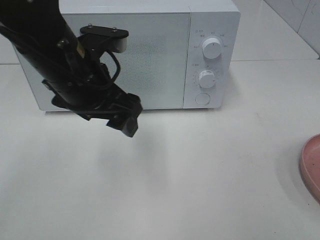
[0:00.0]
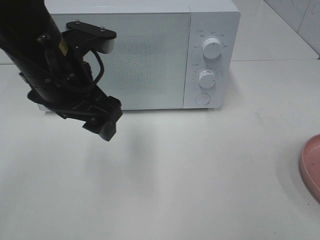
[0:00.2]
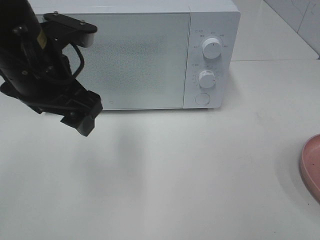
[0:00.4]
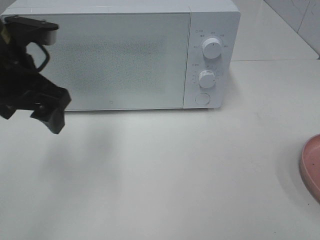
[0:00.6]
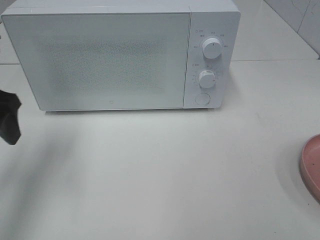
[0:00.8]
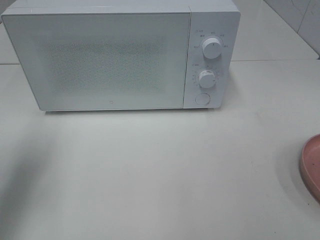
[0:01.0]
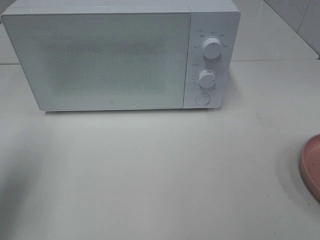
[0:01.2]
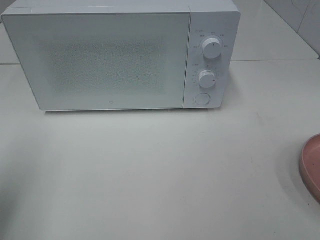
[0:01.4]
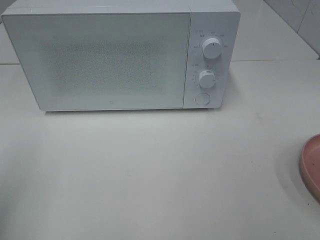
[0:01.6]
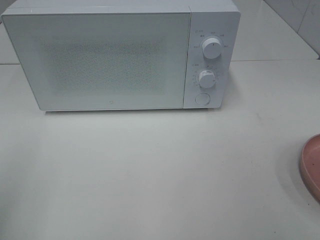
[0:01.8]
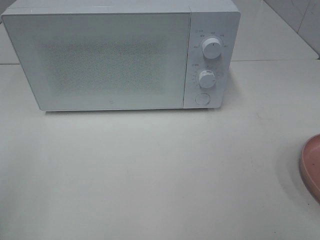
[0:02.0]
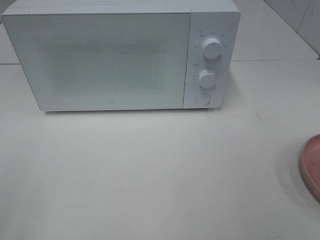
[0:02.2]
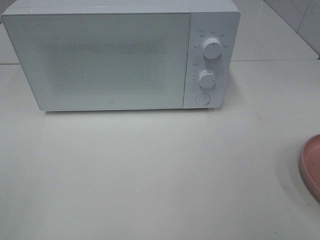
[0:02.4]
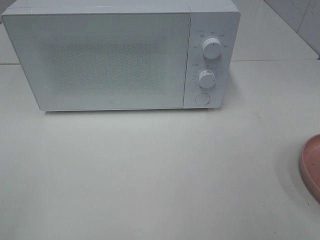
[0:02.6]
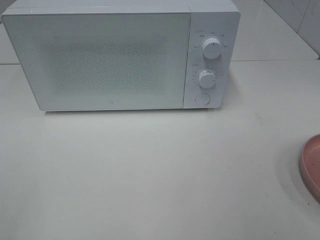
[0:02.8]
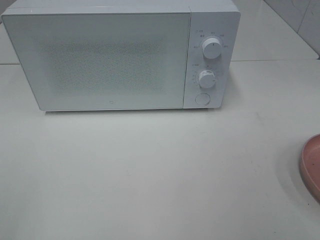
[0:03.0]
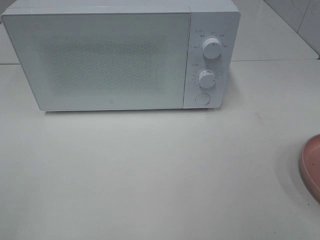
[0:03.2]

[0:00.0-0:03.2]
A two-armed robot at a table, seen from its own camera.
Task of the whole recording: Heat the burger.
0:00.0 to 0:01.6: The left gripper shifts approximately 25 cm to the left and backward.

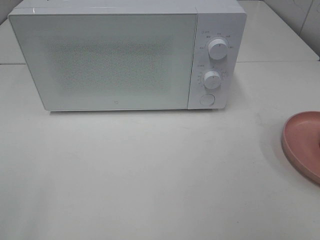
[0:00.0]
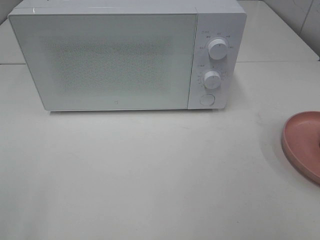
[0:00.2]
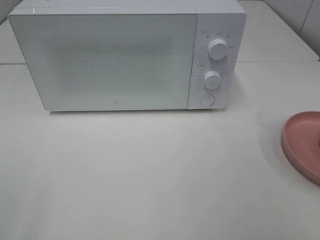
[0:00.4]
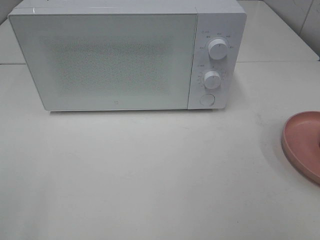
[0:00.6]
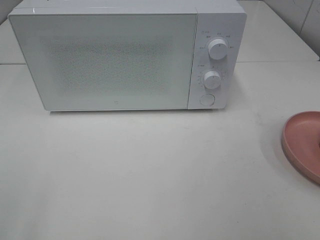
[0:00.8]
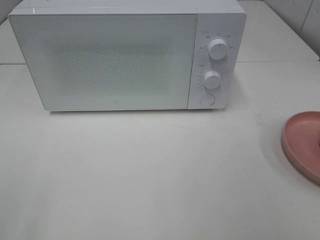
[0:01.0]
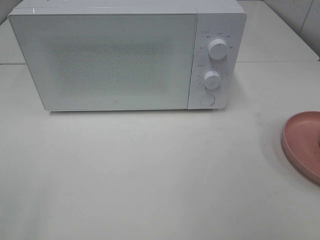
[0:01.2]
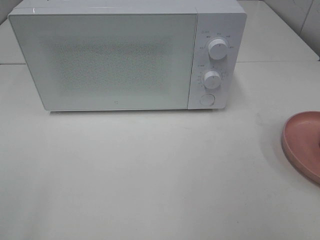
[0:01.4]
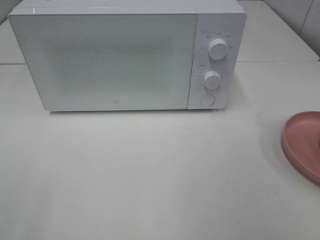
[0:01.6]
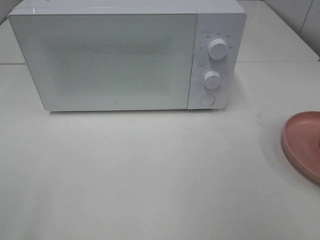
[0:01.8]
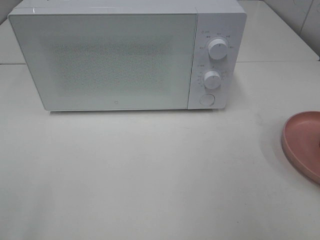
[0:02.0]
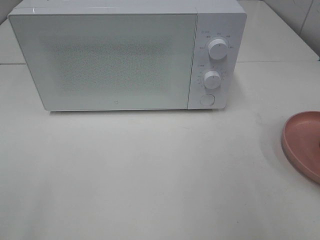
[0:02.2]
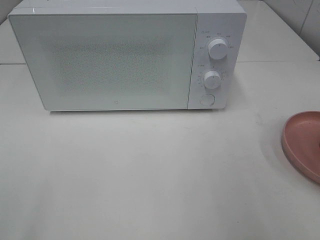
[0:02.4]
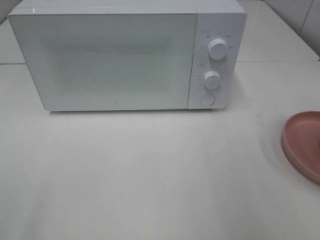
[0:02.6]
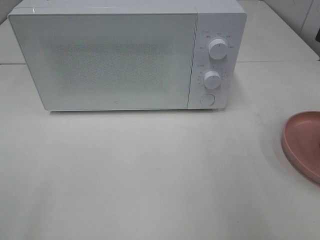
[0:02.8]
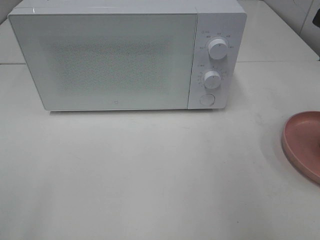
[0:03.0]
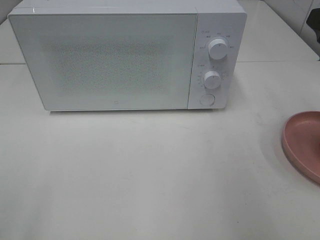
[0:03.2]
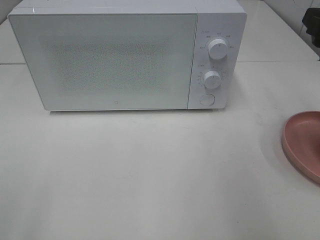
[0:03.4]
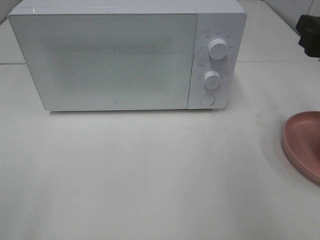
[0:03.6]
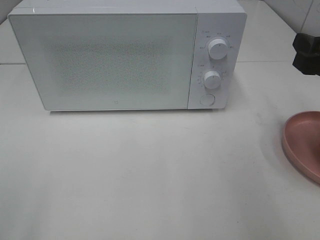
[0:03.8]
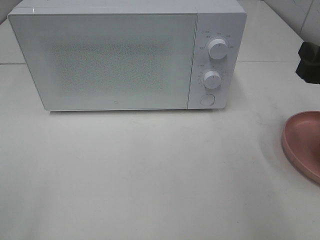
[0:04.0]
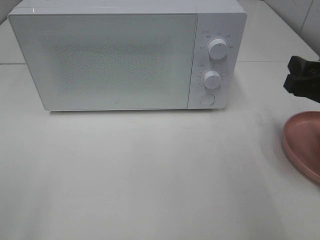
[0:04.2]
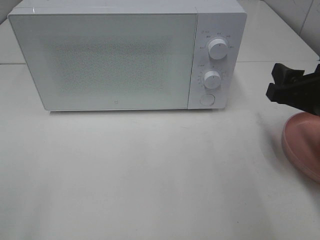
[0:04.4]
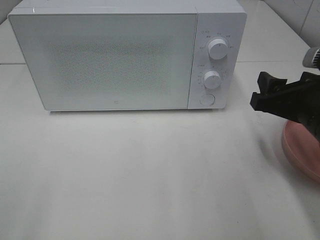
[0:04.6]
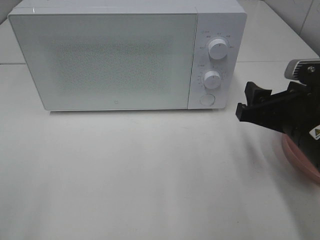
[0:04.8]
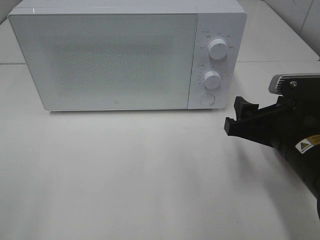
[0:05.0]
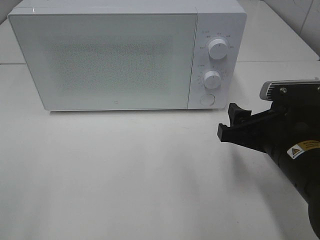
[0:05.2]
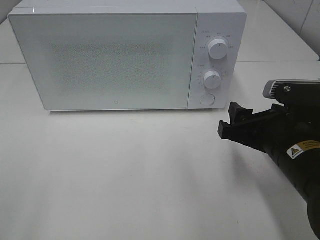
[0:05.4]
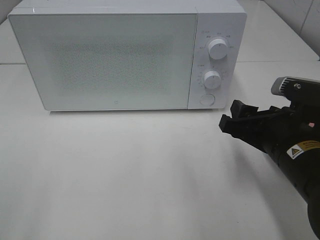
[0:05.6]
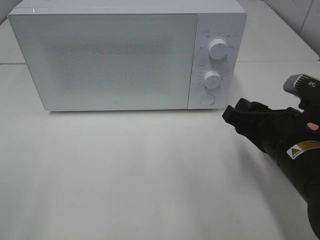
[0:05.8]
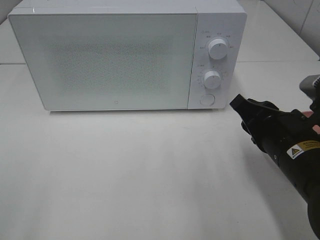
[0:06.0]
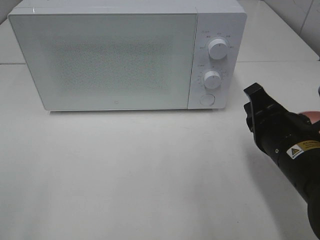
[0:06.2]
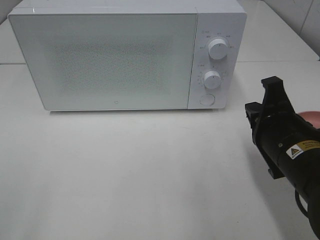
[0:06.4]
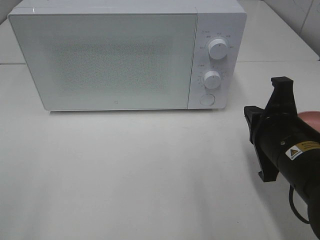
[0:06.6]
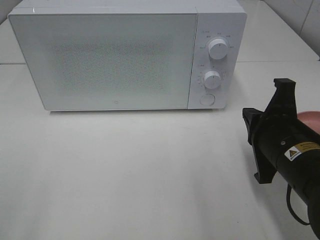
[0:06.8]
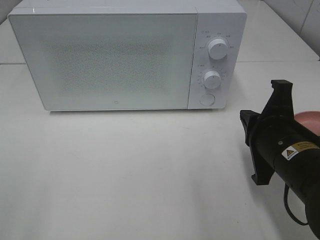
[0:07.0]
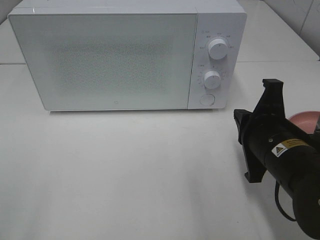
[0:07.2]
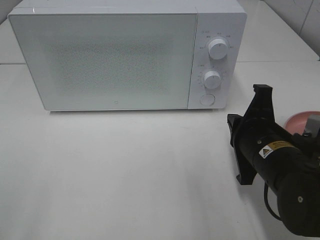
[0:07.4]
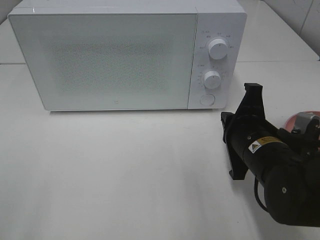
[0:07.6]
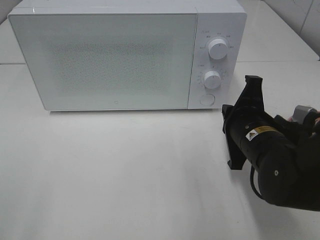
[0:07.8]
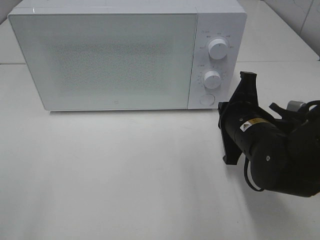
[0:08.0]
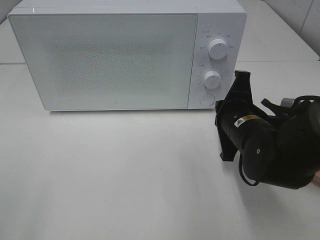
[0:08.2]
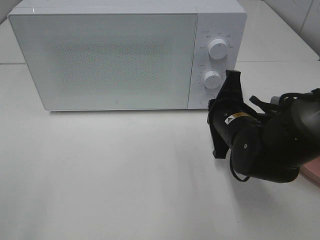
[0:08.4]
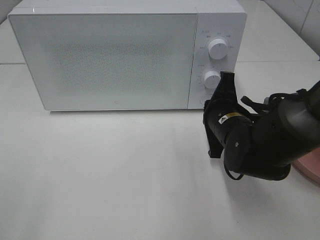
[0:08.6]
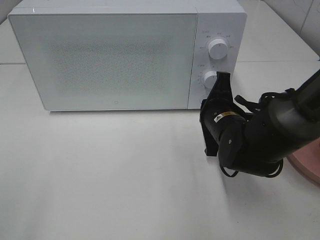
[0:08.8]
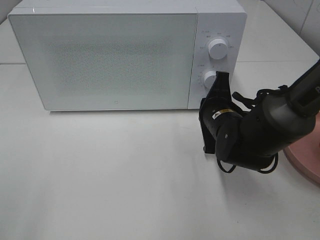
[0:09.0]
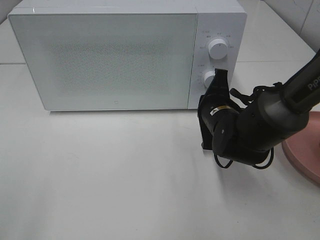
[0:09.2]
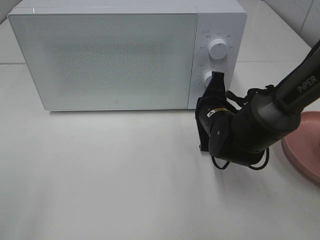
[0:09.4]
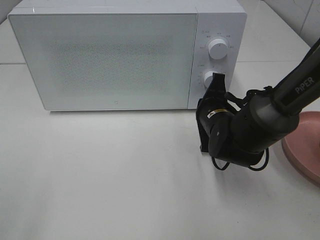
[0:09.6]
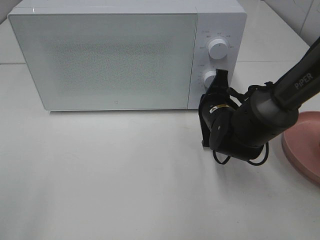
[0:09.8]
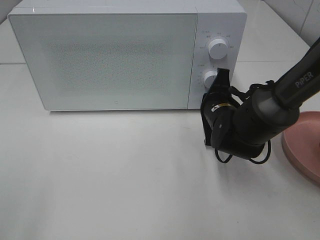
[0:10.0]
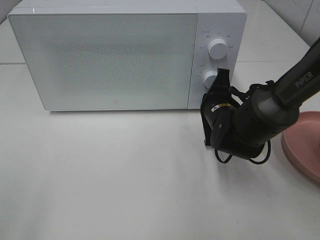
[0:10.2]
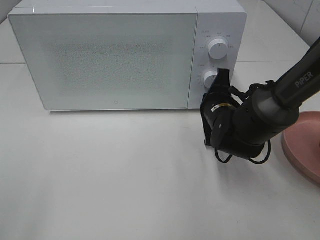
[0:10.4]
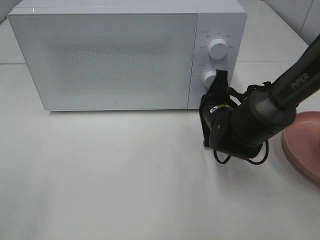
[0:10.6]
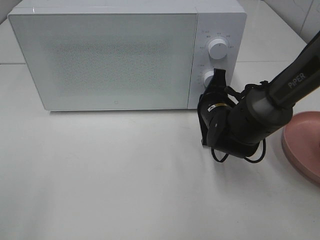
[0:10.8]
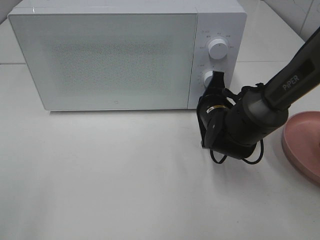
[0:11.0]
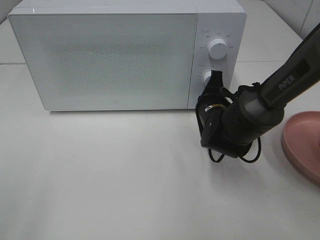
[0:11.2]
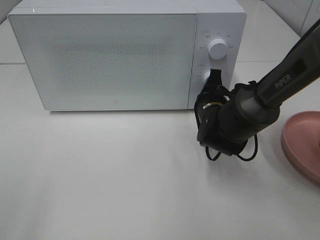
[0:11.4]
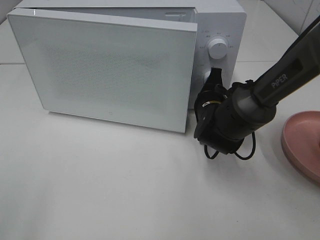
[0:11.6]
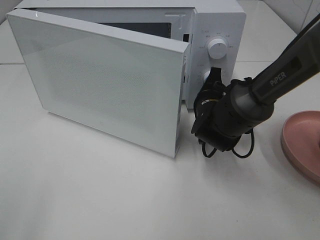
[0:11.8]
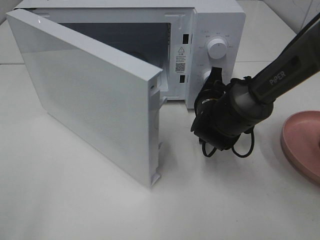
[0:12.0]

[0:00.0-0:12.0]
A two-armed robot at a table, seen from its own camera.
Task of the whole recording: Heat the burger.
0:03.0 to 0:04.4: The right gripper shifts some 10 cm downward.
0:04.4 to 0:06.0: The right gripper is displaced to the left by about 5 cm, and closes up.
0:06.0 to 0:07.6: The right gripper moves approximately 5 cm.
0:07.6 to 0:09.0: The right gripper travels forward by about 10 cm.
0:09.0 to 0:10.4: There are only small adjustments of the grippers.

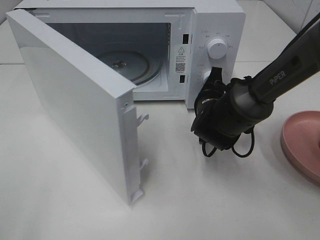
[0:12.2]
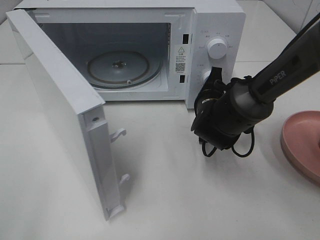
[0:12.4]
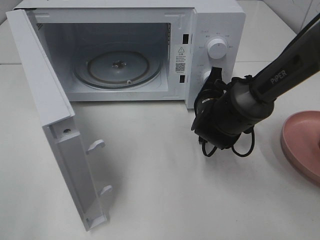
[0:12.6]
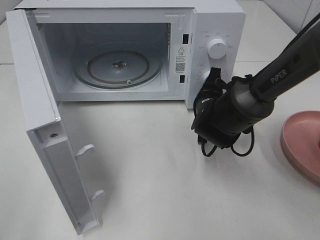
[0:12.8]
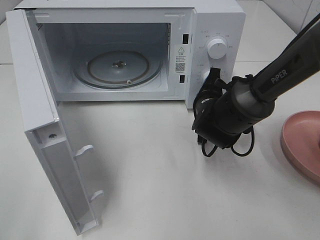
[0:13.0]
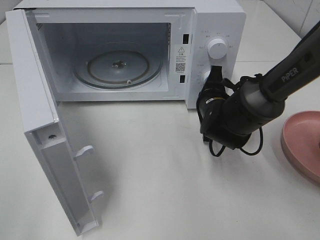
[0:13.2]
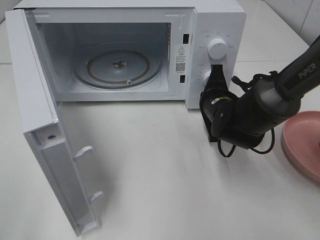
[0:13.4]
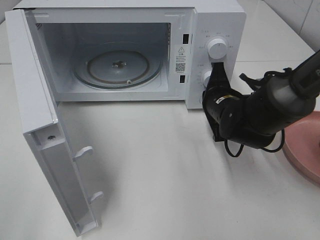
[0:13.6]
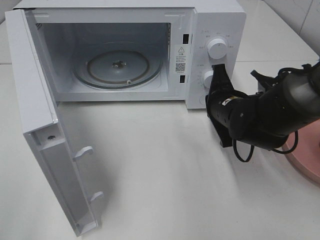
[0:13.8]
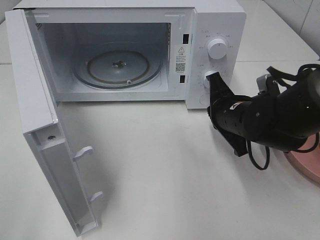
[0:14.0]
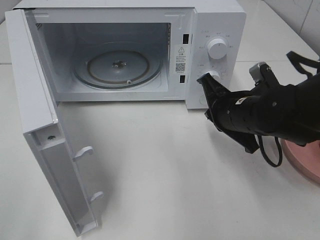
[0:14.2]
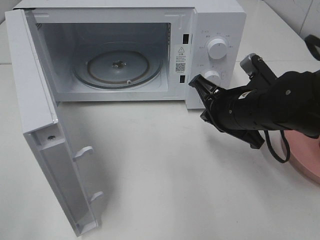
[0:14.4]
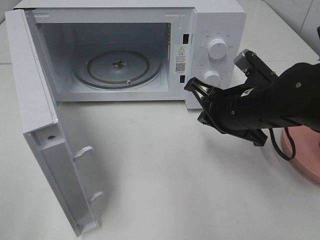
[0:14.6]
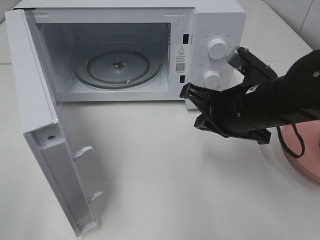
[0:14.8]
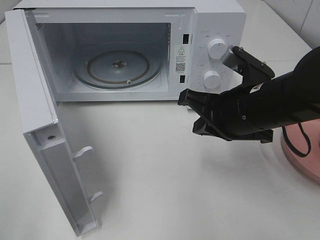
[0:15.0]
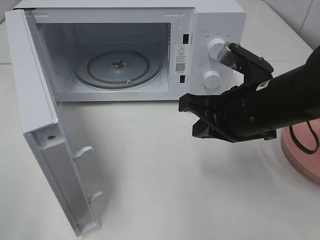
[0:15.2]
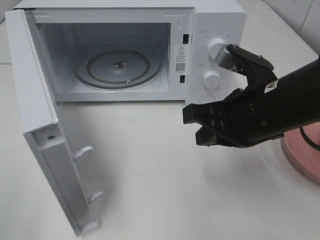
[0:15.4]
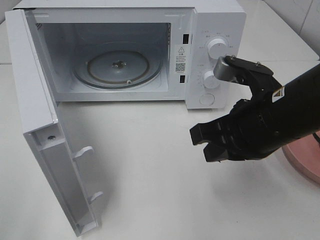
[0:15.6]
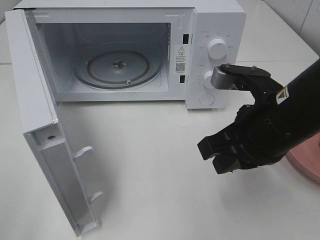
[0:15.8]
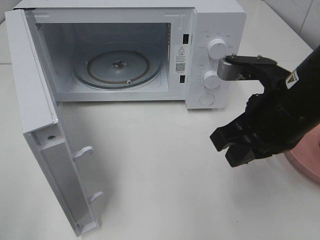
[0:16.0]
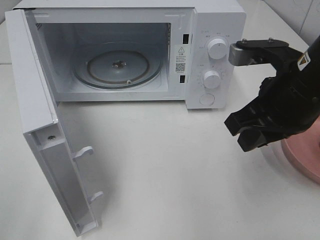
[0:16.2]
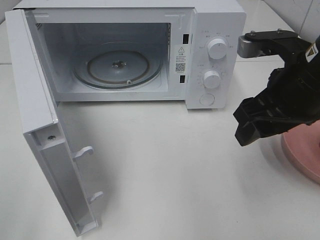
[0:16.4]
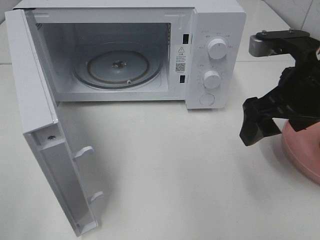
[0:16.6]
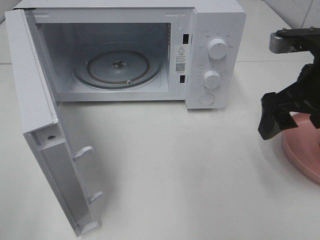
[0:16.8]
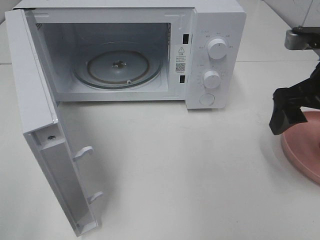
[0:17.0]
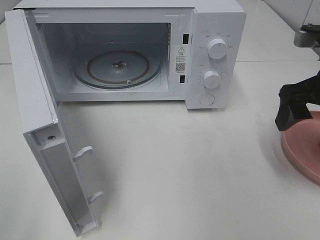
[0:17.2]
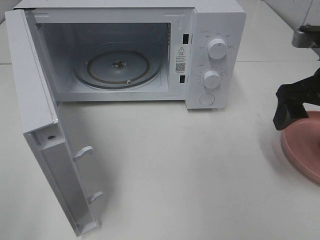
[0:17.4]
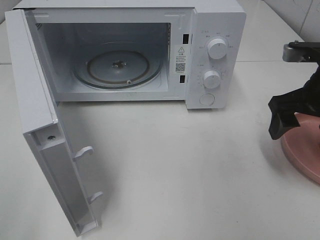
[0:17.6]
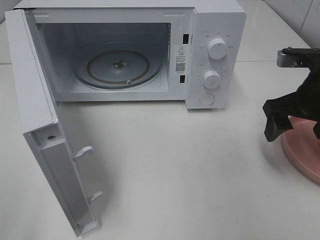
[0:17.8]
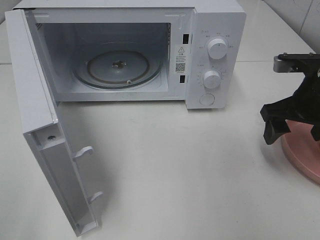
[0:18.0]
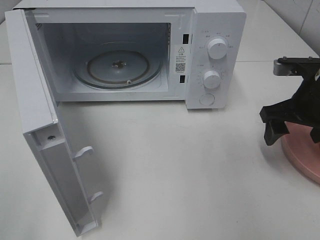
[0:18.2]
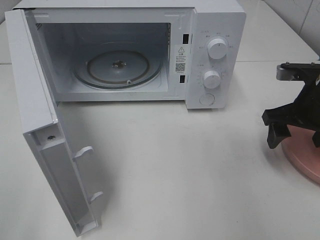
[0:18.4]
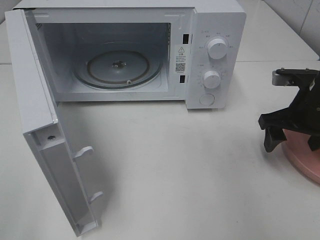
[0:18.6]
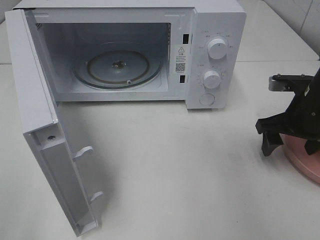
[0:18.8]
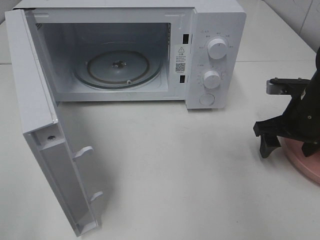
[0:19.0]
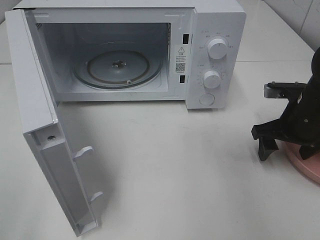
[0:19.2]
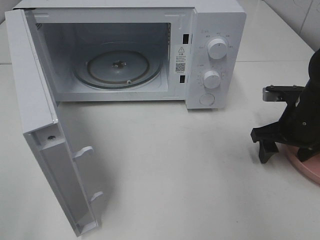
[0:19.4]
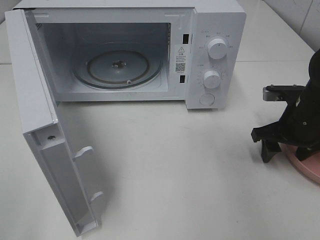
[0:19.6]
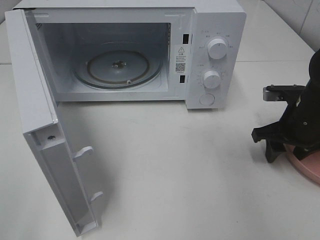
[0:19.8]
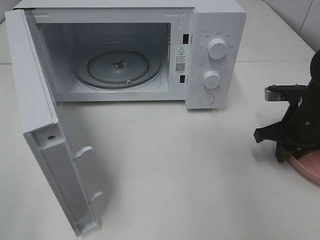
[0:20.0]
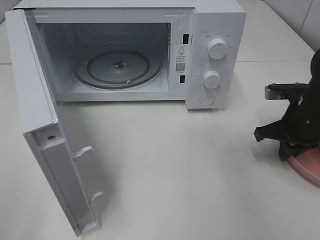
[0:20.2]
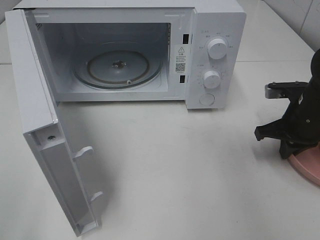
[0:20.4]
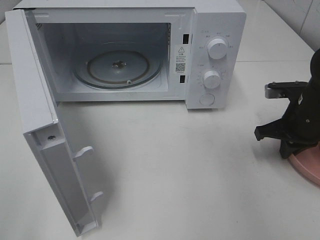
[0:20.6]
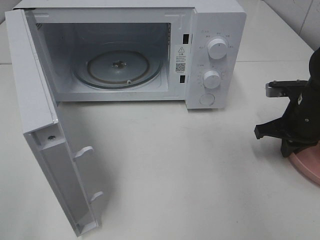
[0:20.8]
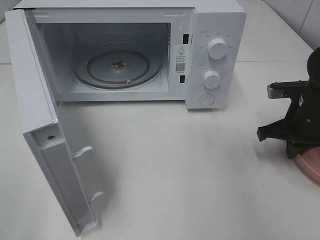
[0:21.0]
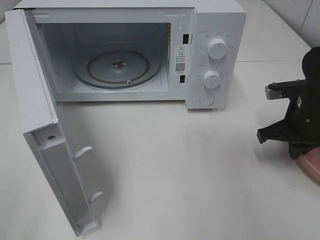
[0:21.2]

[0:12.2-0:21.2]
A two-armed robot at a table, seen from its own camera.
Task of the whole recording: Heat the burger.
Step, 0:13.8 to 0:20.4: Right hand: grab the plate with the hamburger.
0:12.2 to 0:13.8: The right gripper ends up some 5 cm from where it was.
0:13.8 to 0:15.2: The right gripper is displaced upward and backward by approximately 15 cm.
0:15.2 to 0:16.6: The right gripper heads to the right, covering some 5 cm, and opens.
0:16.6 to 0:18.2: The right gripper moves downward, to the right and forward, about 10 cm.
0:18.2 to 0:19.8: The right gripper is displaced downward by about 5 cm.
0:19.8 to 0:21.2: The right gripper closes.
